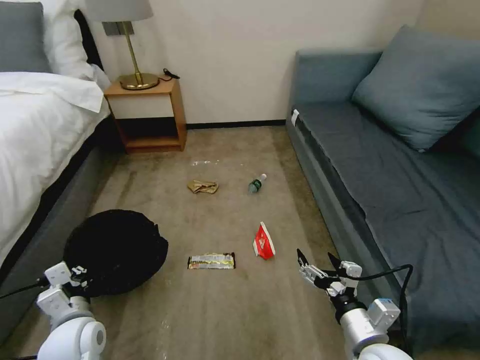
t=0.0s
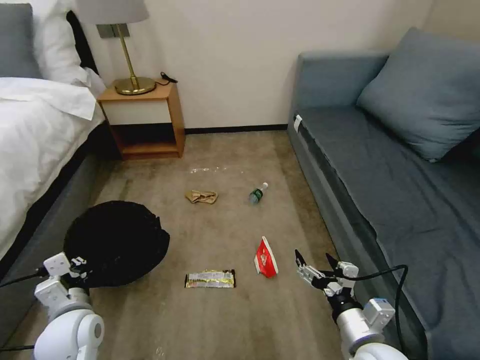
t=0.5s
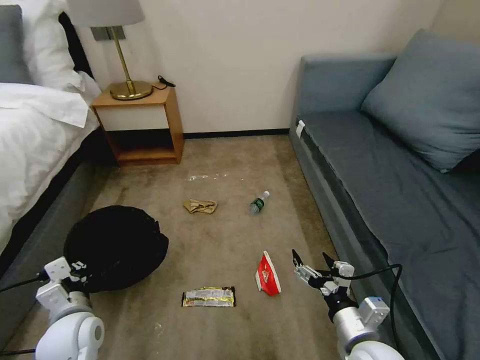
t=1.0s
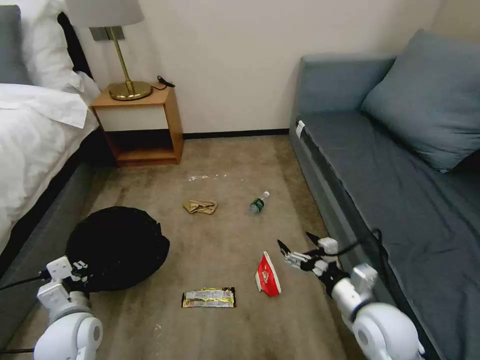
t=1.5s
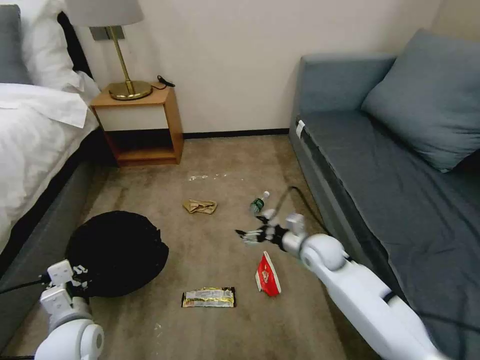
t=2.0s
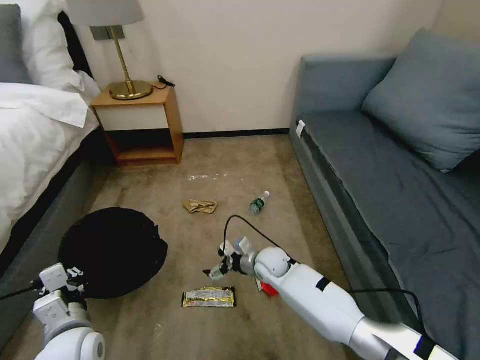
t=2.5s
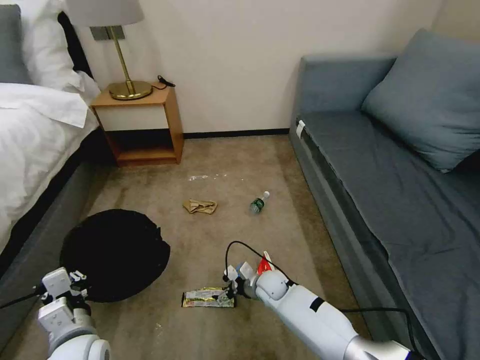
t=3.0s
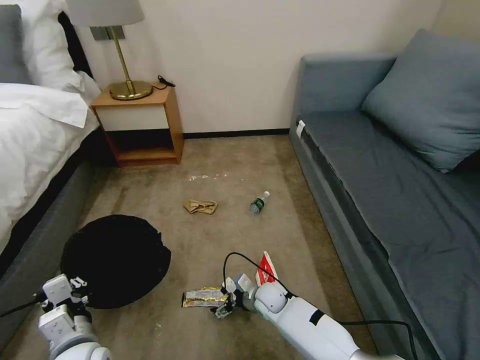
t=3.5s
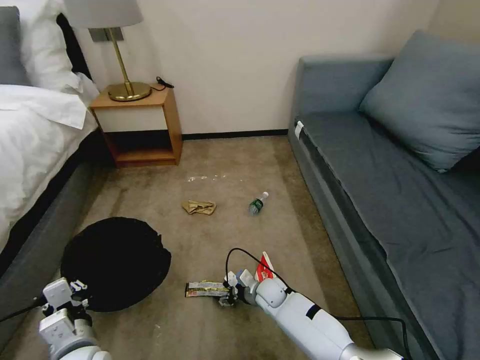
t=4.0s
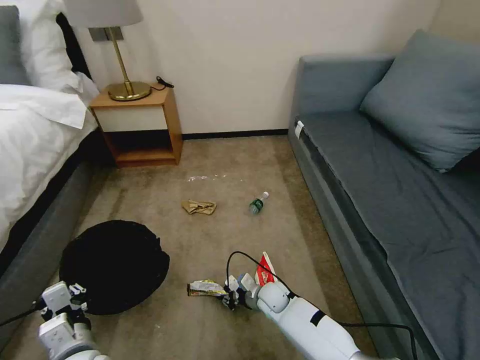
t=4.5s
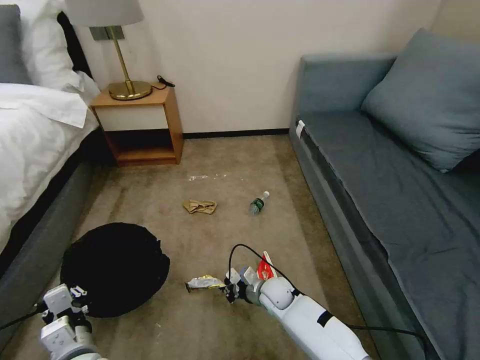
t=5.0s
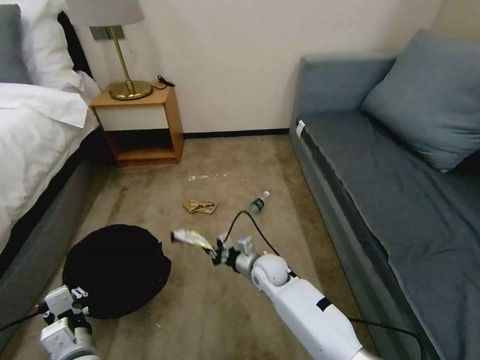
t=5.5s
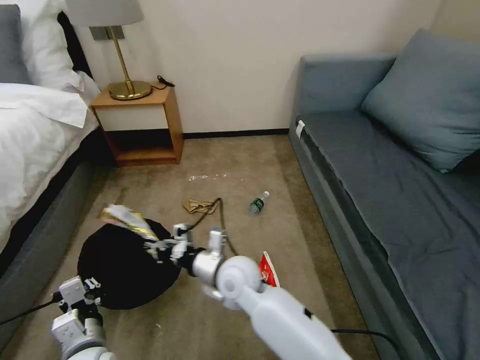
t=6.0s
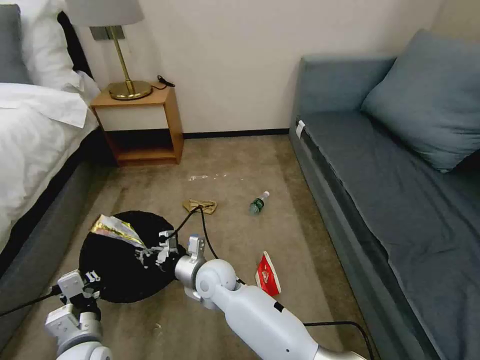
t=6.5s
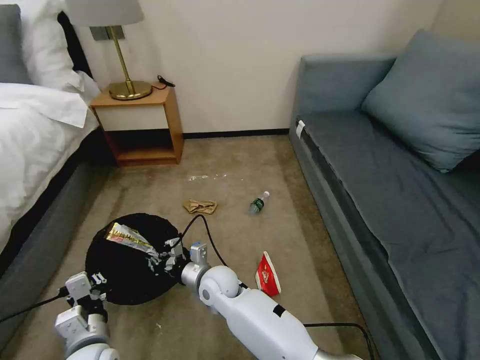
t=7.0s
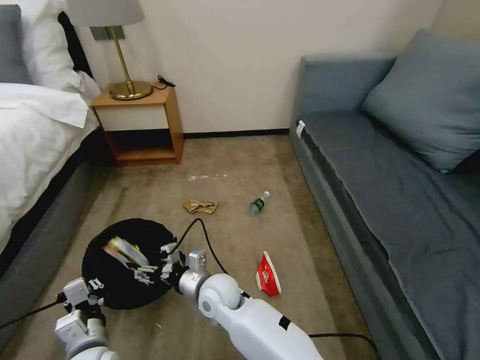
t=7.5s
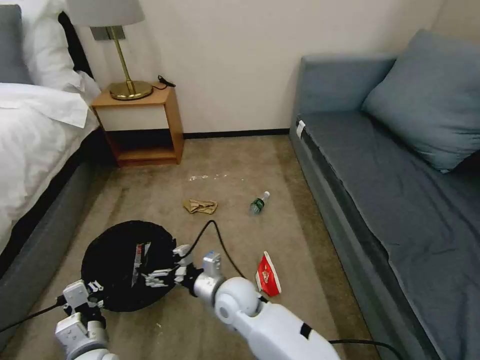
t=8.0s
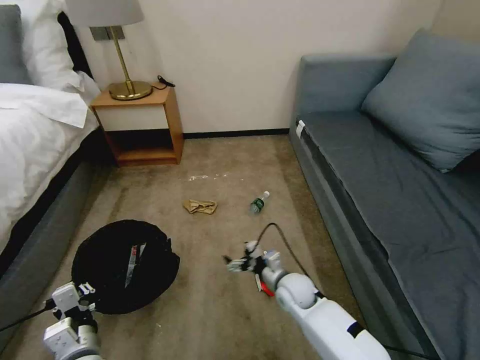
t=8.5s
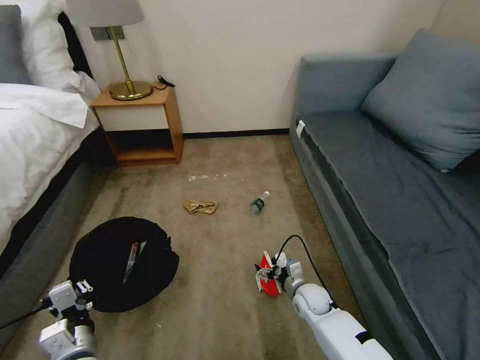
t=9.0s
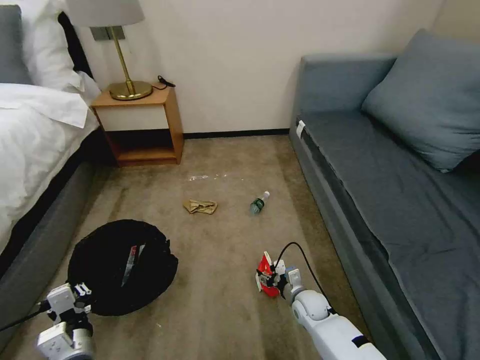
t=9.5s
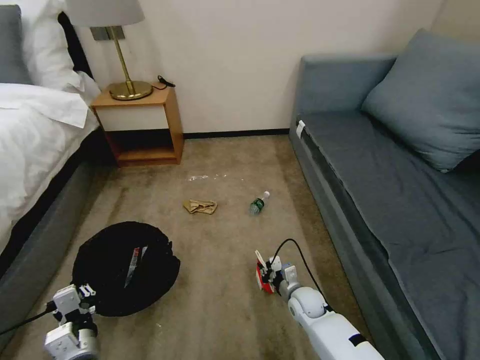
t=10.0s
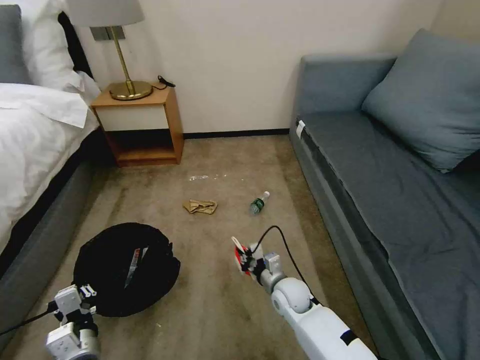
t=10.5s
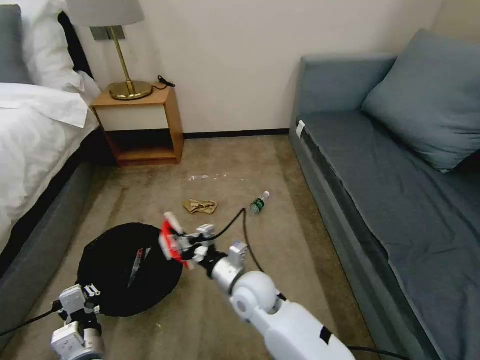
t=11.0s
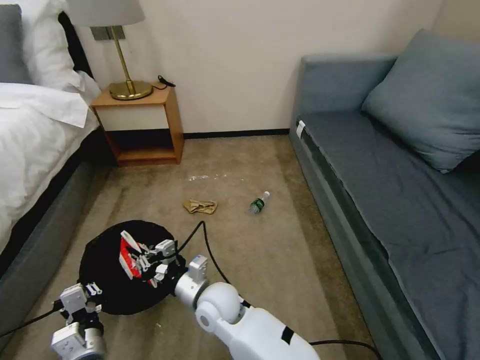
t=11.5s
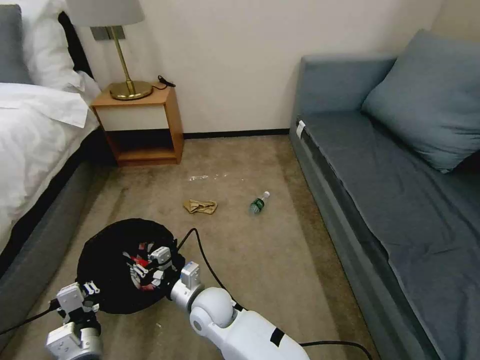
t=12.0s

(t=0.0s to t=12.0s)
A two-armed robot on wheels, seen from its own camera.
Task of the whole recording: Pick up the trash bin, then pick up the garbage on the floor and place it into the trash bin.
t=0.0s - t=2.0s: The right gripper shifts about 25 cm forward.
t=2.0s - t=4.0s: The left gripper changes place by roughly 5 cm. Meanwhile the right gripper is displaced downward and to the left by some 20 cm.
t=4.0s - t=6.0s: The right gripper moves upward and to the left, about 25 cm, and closes.
t=6.0s - t=8.0s: The right gripper travels downward by approximately 5 cm, and opens.
t=8.0s - t=10.0s: The right gripper moves to the right and downward, about 25 cm, and closes up.
t=10.0s - t=12.0s: The right gripper goes roughly 30 cm to the left and upward.

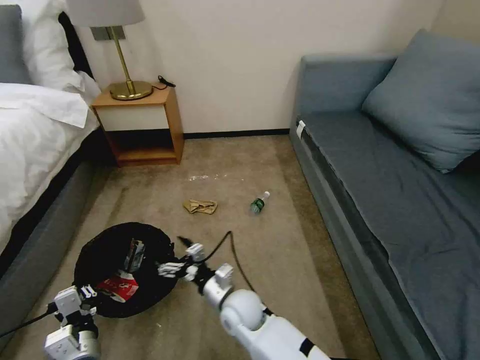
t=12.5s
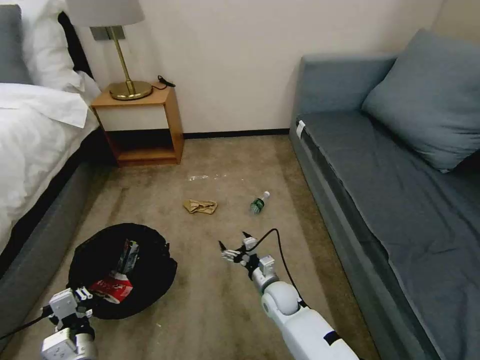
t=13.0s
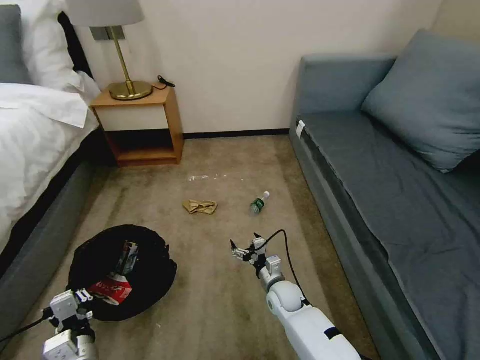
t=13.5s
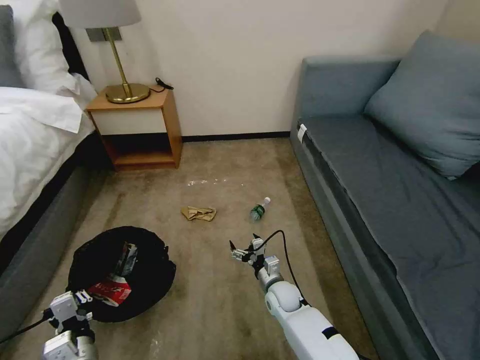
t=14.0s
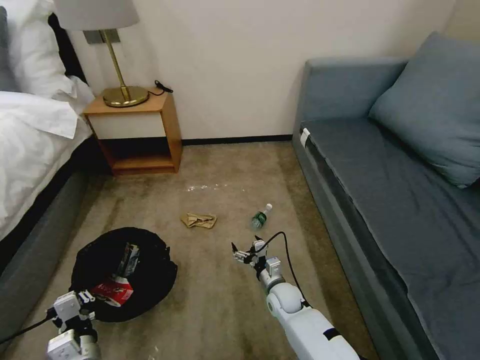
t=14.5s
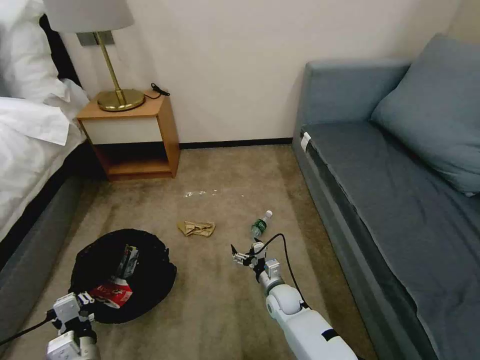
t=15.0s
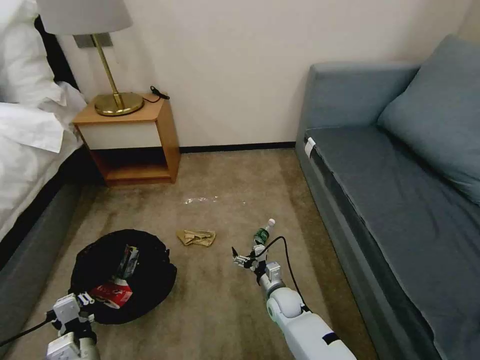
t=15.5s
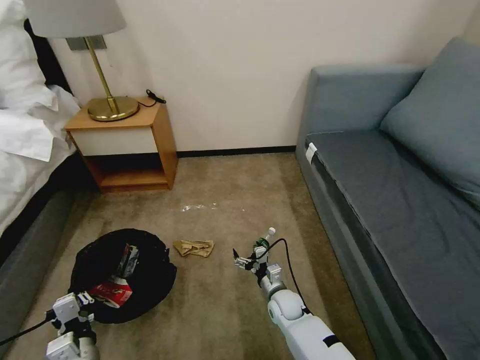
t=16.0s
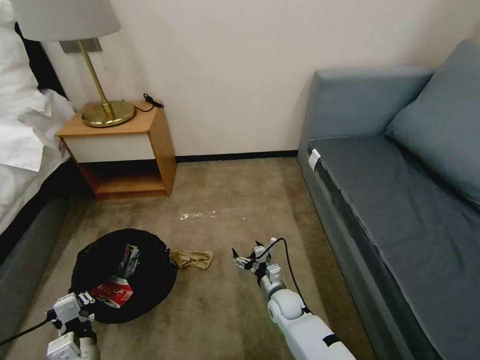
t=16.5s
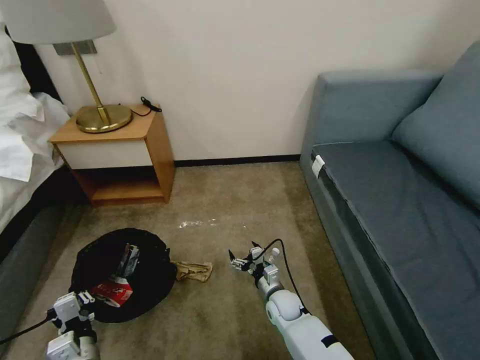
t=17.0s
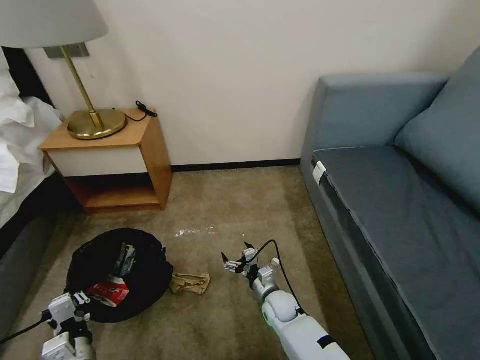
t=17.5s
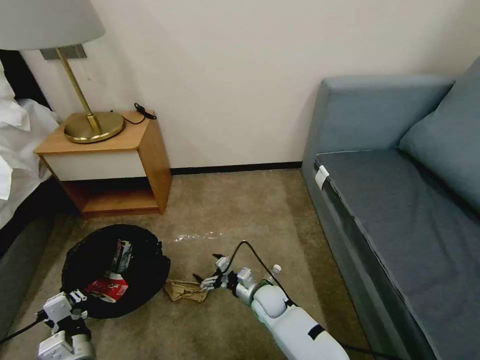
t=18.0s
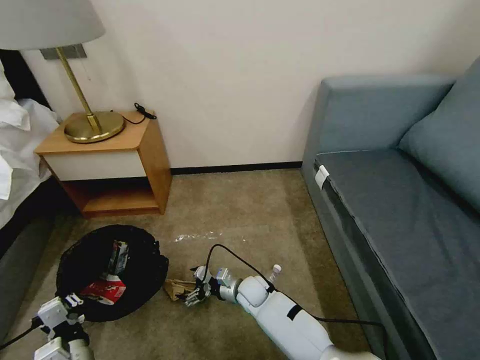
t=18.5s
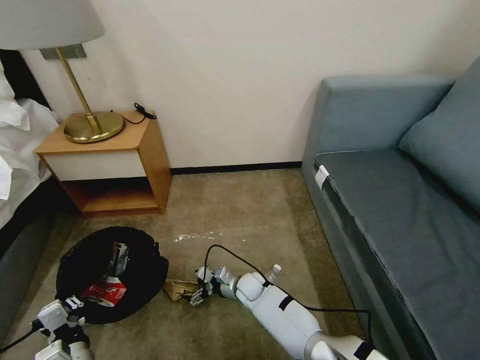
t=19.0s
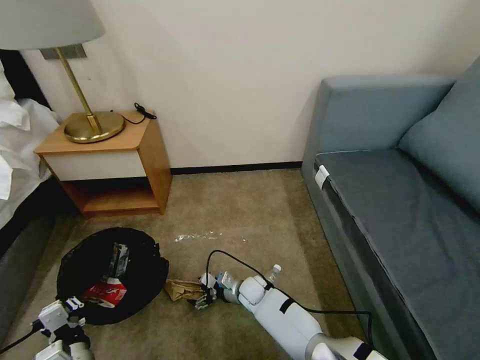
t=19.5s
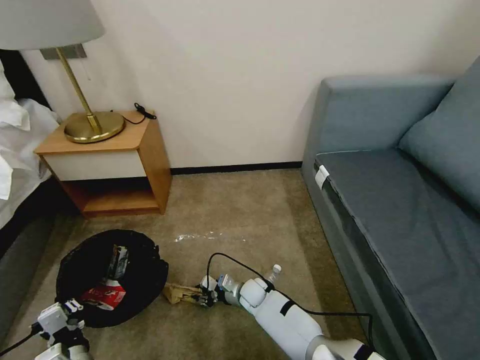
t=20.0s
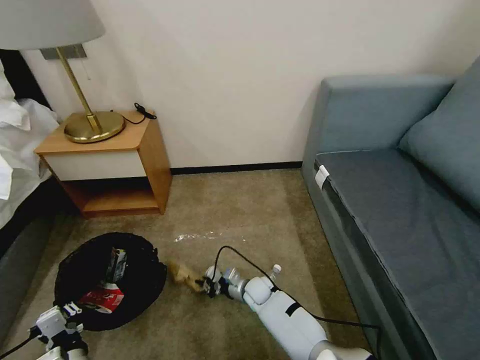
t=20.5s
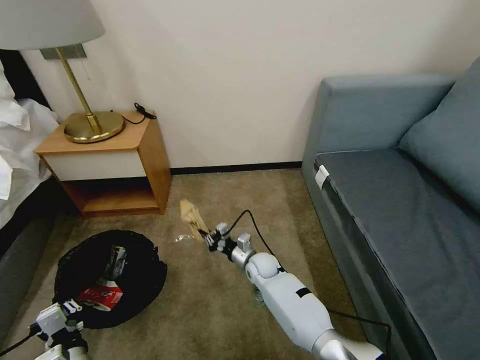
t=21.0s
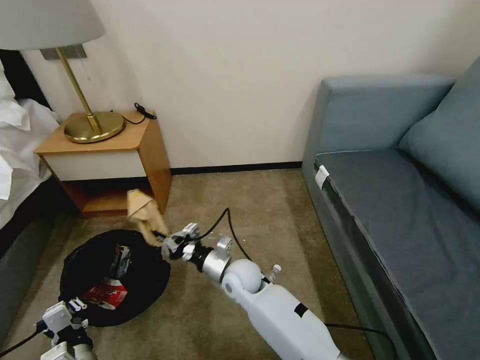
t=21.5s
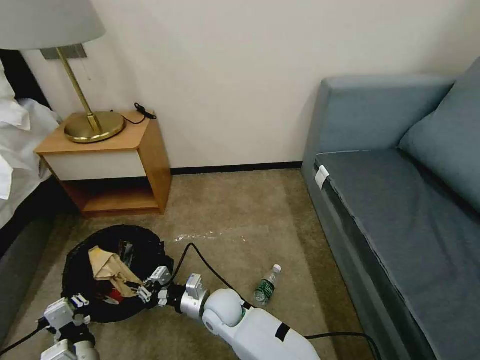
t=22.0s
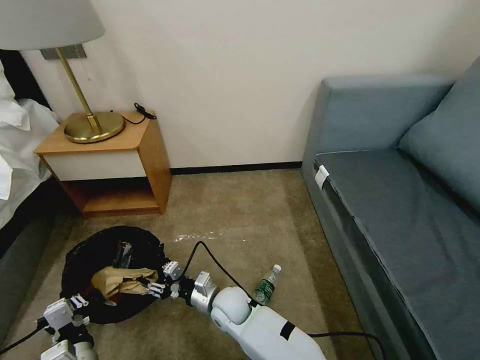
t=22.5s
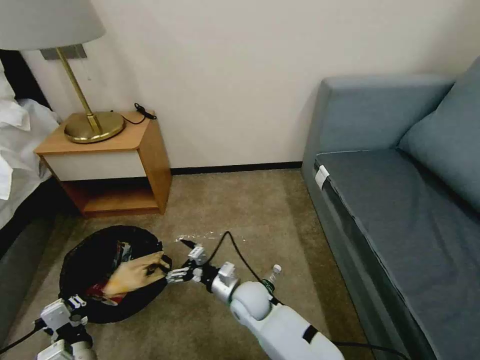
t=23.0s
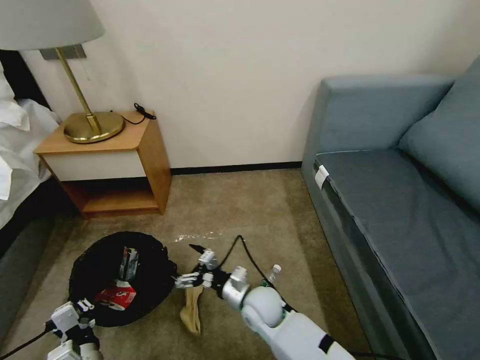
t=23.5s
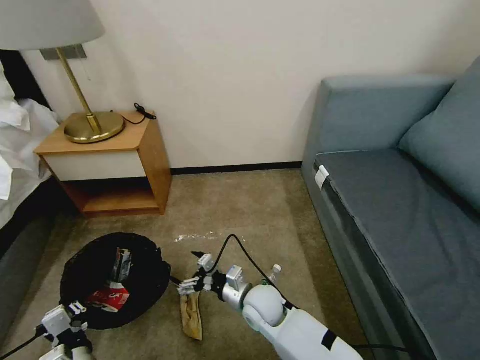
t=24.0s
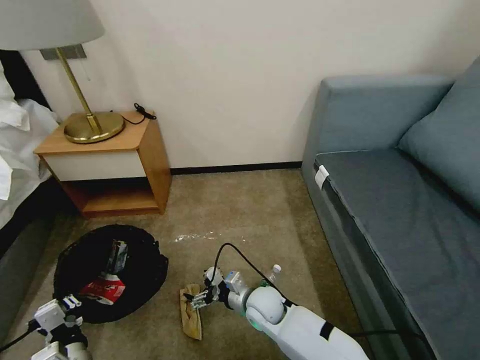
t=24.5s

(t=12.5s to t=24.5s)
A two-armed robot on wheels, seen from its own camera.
Task of the whole recording: Pick up the trash bin, then pick up the garbage on the floor and place it into the trash bin.
t=12.5s - t=14.5s: The right gripper is displaced to the right, downward and forward by roughly 20 cm.
t=16.5s - t=18.5s: The right gripper heads to the left, covering some 10 cm.
t=18.5s - t=20.5s: The right gripper closes.
t=20.5s - t=22.5s: The right gripper goes roughly 15 cm upward, to the left and backward, and opens its fingers.
t=22.5s - t=24.5s: The right gripper travels to the right by about 10 cm, and opens.

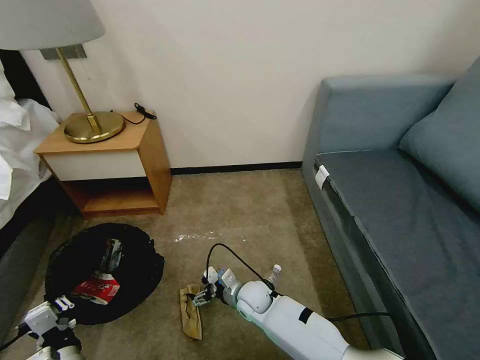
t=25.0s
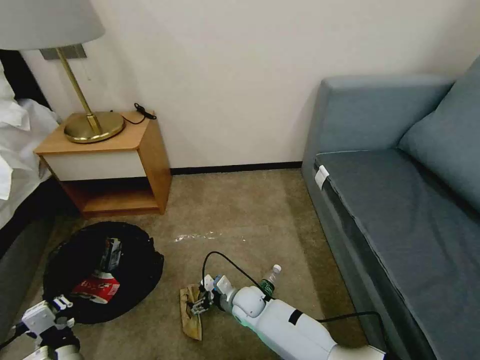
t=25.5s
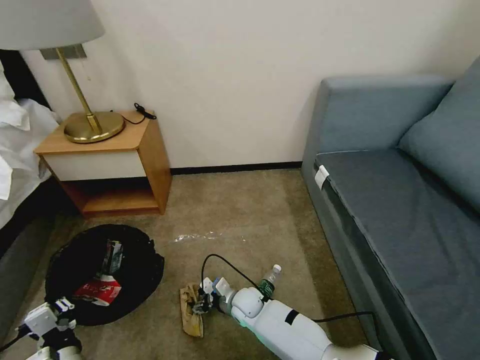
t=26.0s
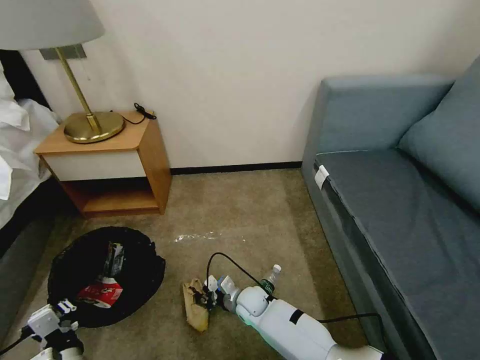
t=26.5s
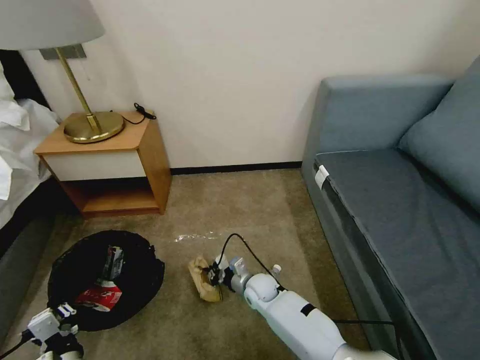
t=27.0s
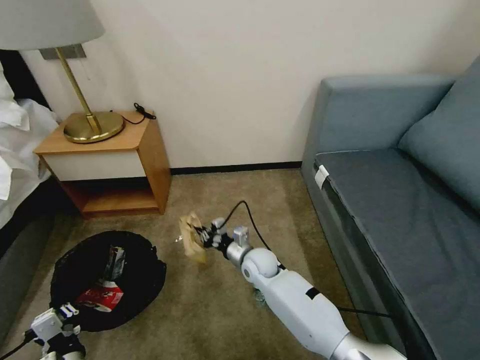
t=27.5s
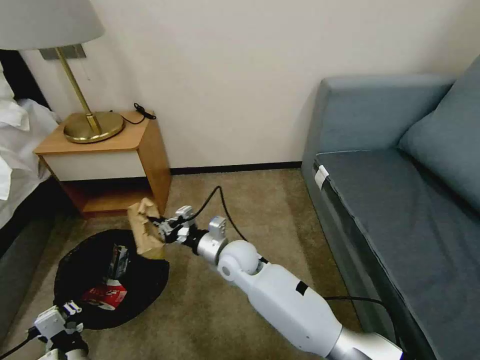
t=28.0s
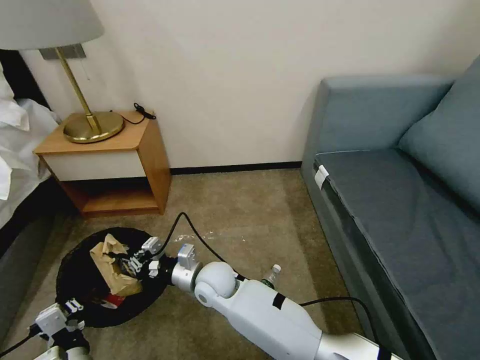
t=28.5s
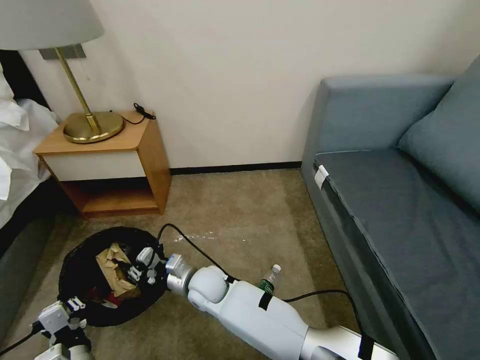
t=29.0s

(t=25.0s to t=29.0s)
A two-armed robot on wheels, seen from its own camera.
Task of the whole recording: Pick up the trash bin, then pick up the garbage on the floor and place it into the trash bin.
t=25.0s - t=27.0s: The right gripper closes its fingers.
t=27.0s - t=29.0s: The right gripper goes about 20 cm to the left and upward.
